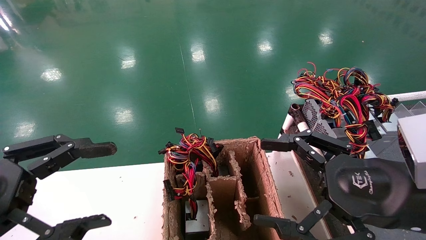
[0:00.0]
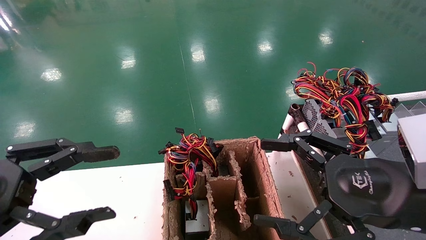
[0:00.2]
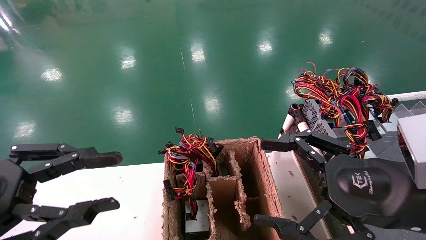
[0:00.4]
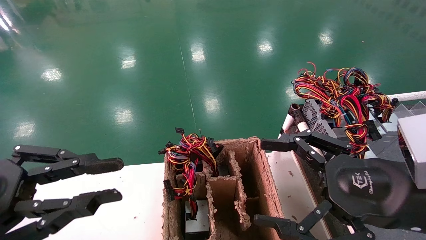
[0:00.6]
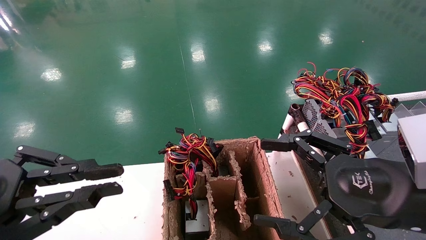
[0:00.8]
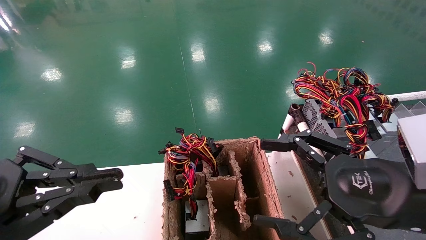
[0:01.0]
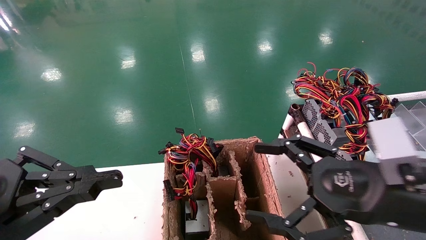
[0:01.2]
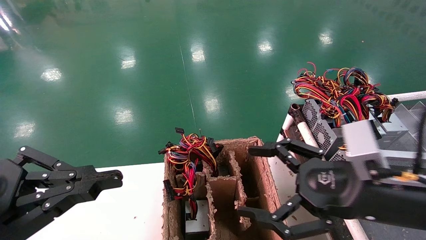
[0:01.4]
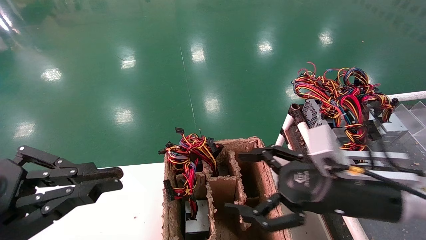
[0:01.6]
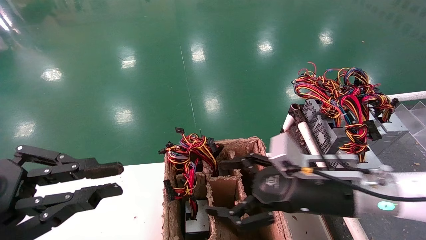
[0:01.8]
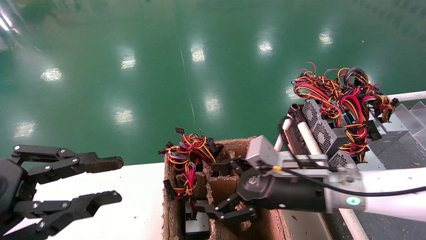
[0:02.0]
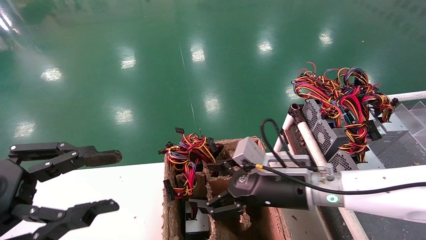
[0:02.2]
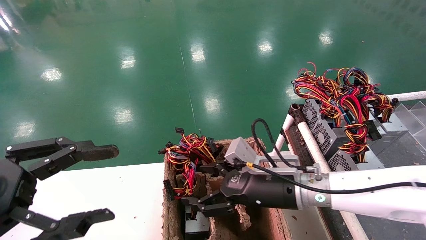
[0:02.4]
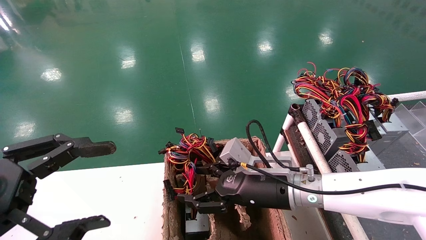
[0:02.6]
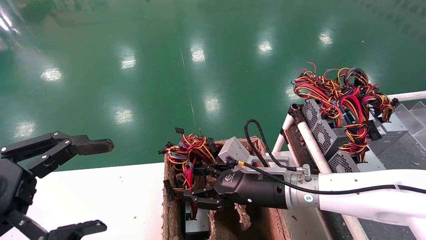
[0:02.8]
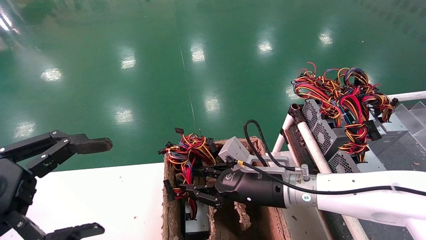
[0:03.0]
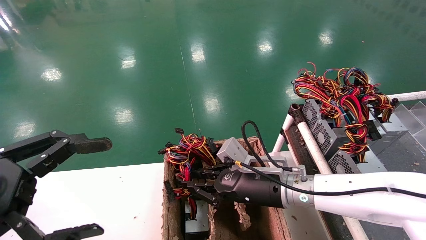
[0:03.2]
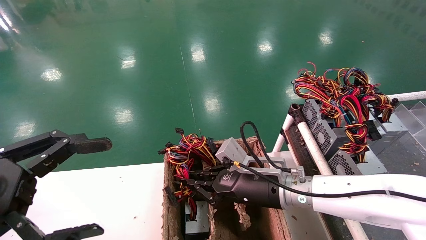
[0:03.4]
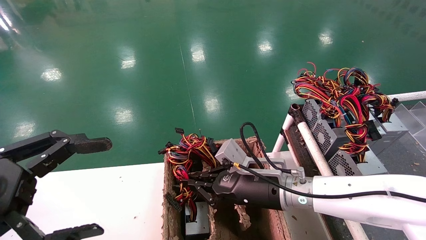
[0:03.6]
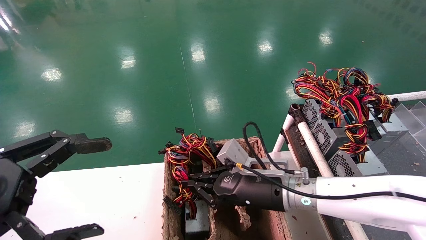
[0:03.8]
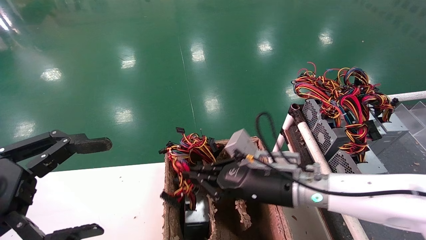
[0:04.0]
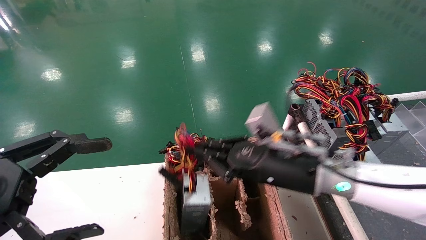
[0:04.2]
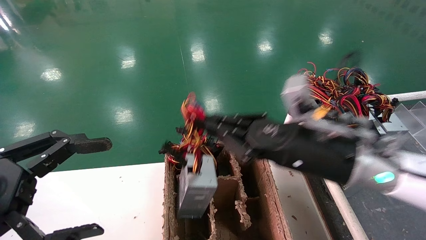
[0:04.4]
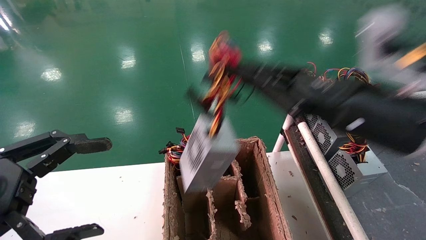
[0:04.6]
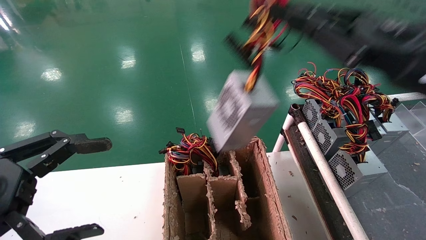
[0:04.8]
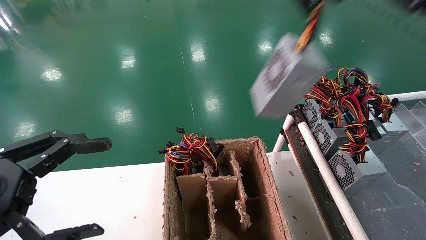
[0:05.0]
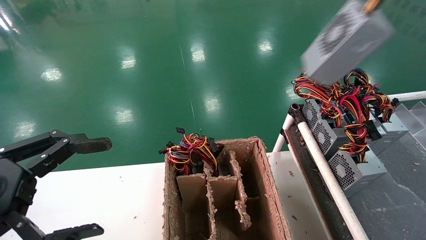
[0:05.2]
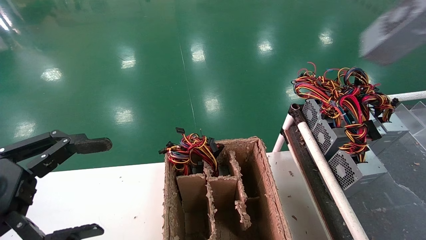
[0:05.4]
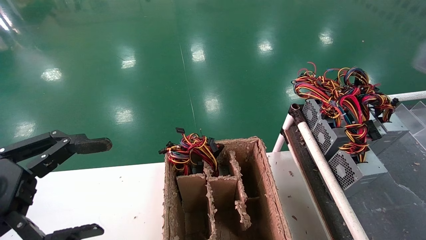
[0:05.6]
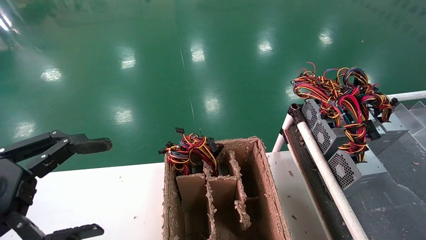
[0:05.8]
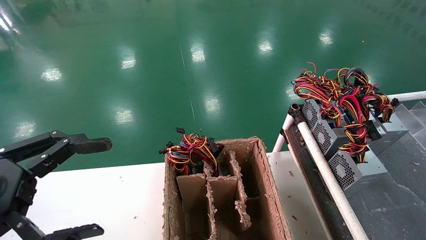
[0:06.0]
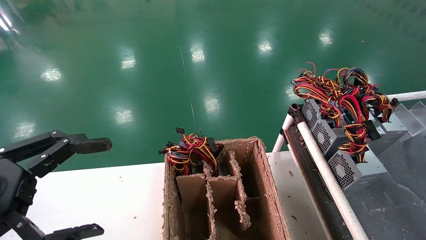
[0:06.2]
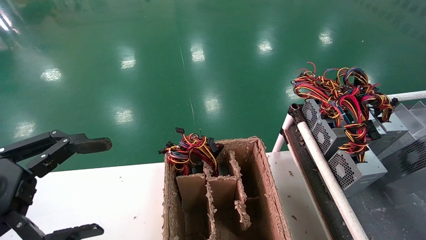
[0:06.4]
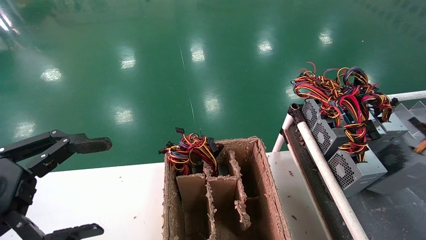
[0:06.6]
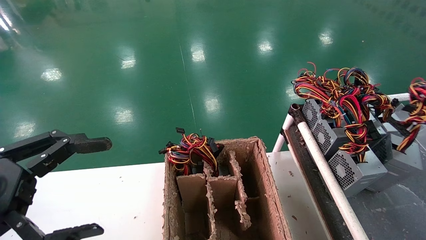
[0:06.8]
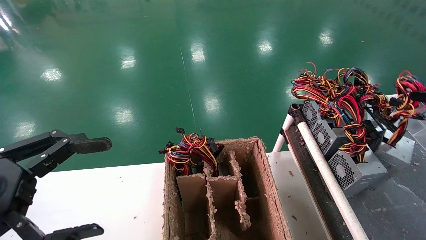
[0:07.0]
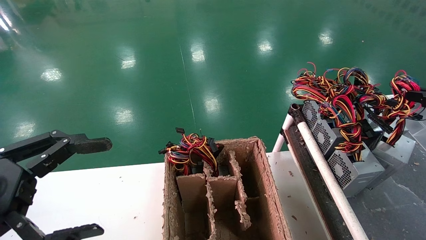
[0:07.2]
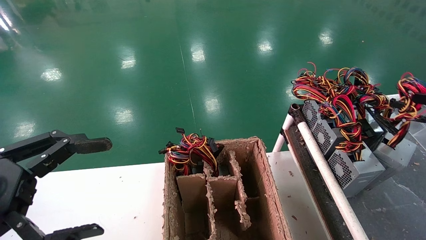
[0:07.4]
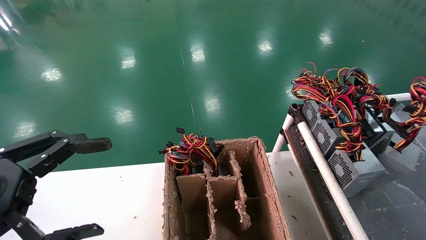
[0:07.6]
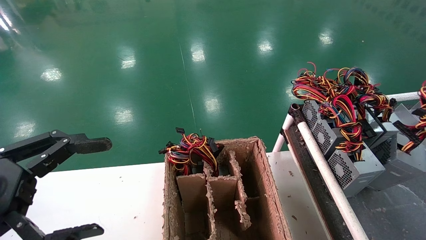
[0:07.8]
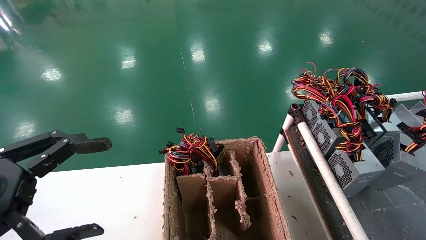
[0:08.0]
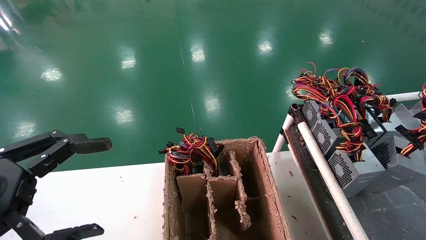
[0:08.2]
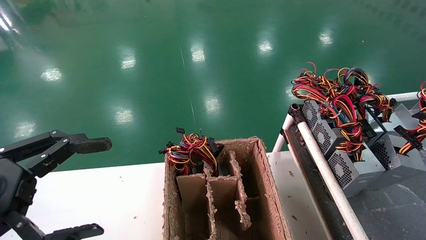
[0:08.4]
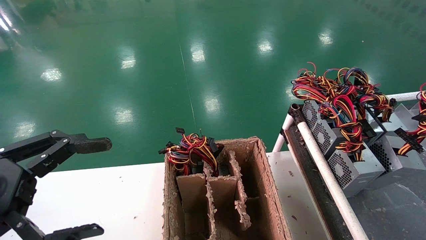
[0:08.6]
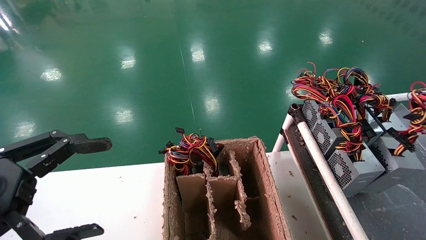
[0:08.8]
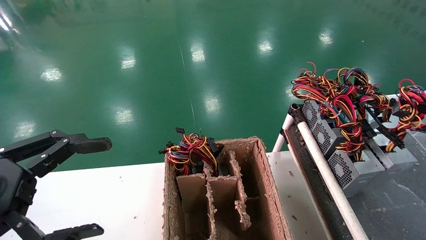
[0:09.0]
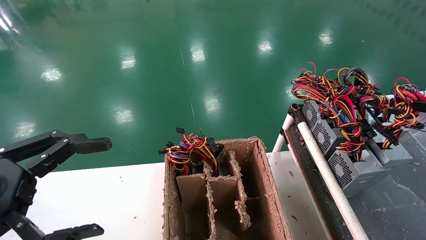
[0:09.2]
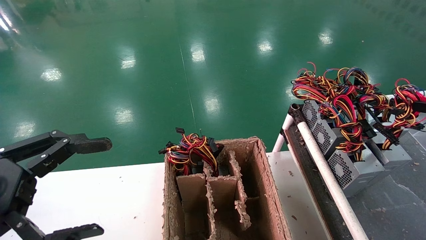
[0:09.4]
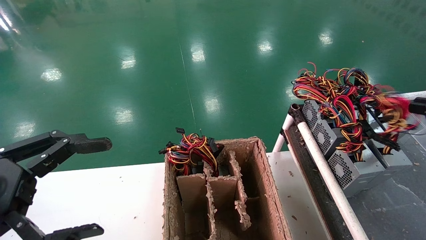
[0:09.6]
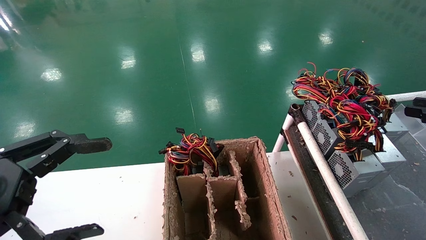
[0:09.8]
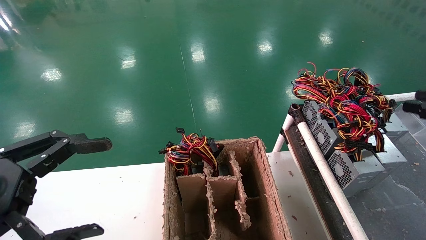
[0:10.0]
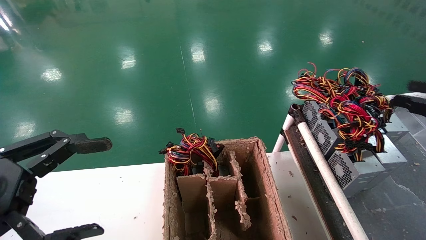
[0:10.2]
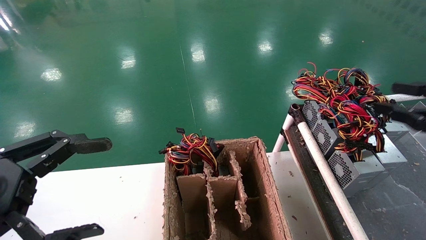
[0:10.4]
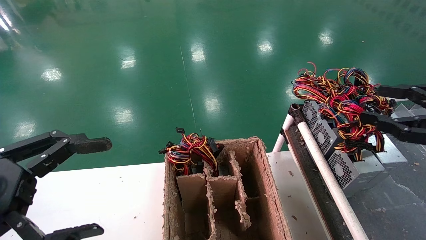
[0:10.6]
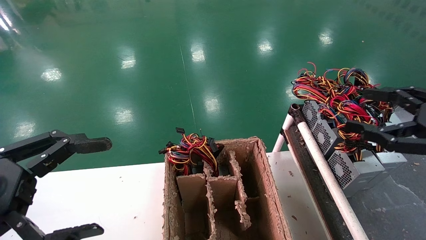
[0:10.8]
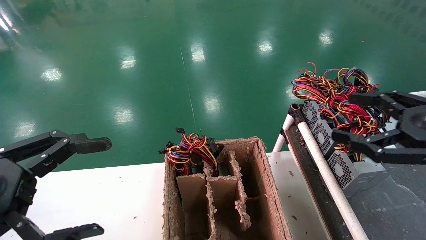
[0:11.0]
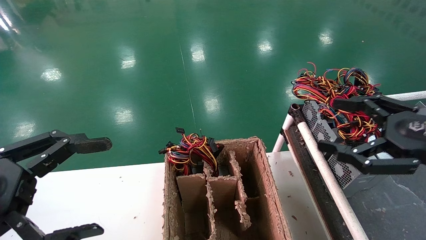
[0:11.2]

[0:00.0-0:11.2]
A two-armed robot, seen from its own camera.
Step, 0:01.4 to 0:03.4: Grab and lift the power supply from the large box.
Step, 0:03.6 to 0:09.6: Place the power supply on the operating table.
0:00.0 to 0:01.6: The right gripper heads forward, covering some 5 cm. Meanwhile the left gripper closes its fingers.
0:01.6 to 0:03.2: The left gripper opens its fingers; the right gripper shifts about 15 cm to the left, forward and downward, and closes.
0:03.2 to 0:04.8: The right gripper travels upward, to the right and backward by roughly 30 cm.
0:04.8 to 0:06.4: The right gripper goes some 30 cm to the right.
0:08.0 to 0:09.6: The grippers make only small movements.
0:09.6 to 0:11.2: The right gripper moves to the left, approximately 10 cm, and opens its fingers.

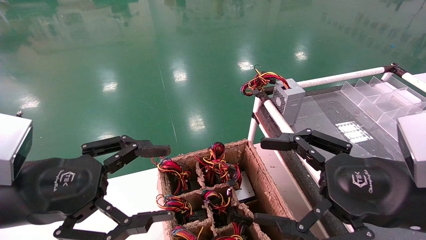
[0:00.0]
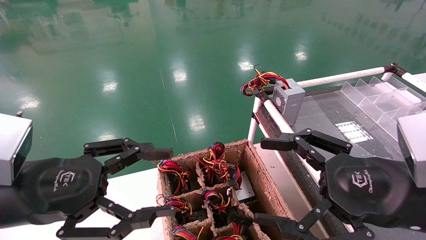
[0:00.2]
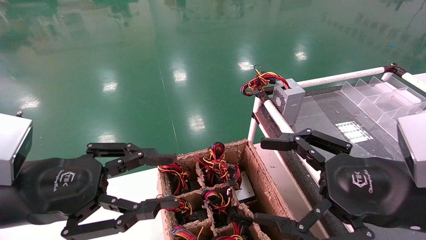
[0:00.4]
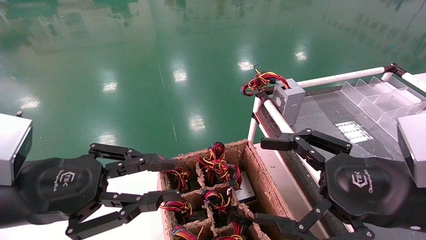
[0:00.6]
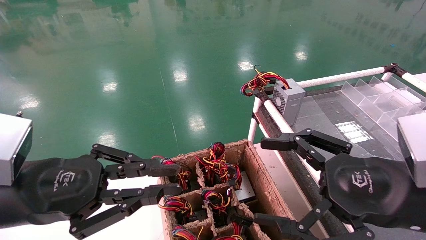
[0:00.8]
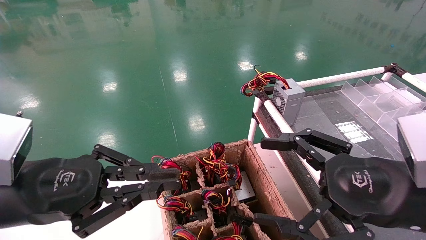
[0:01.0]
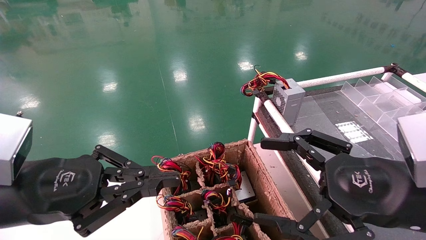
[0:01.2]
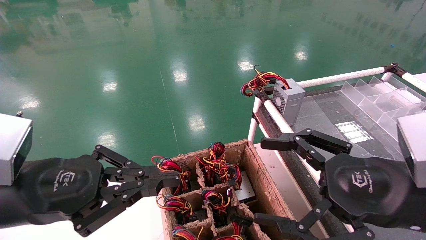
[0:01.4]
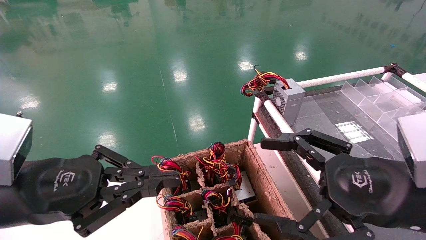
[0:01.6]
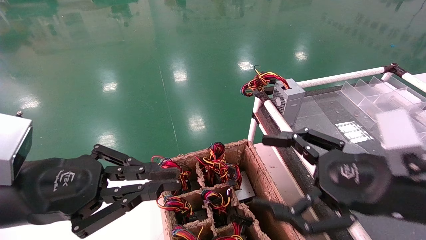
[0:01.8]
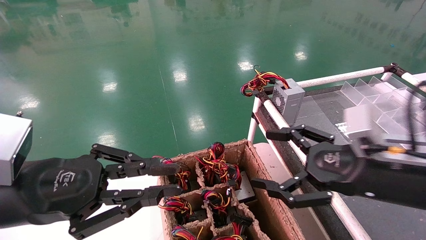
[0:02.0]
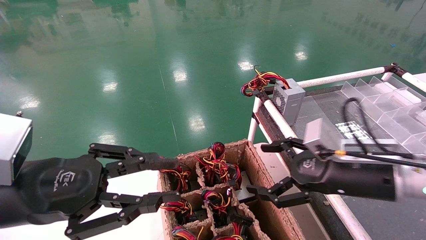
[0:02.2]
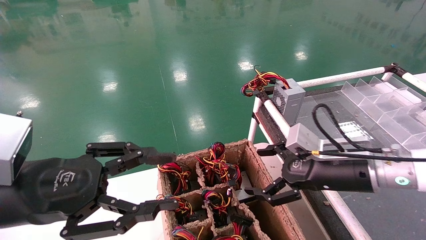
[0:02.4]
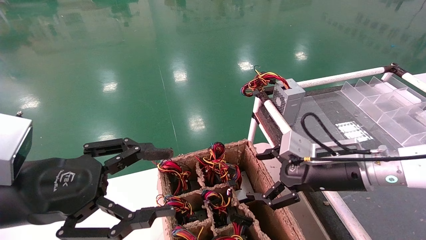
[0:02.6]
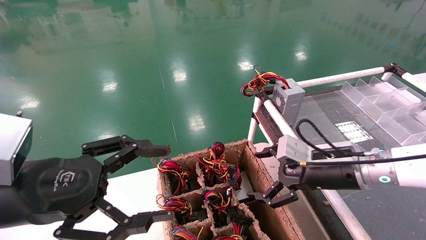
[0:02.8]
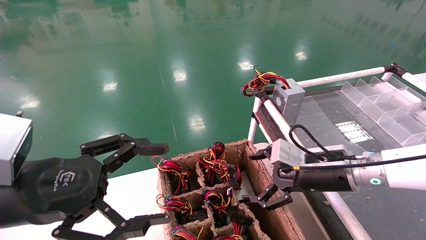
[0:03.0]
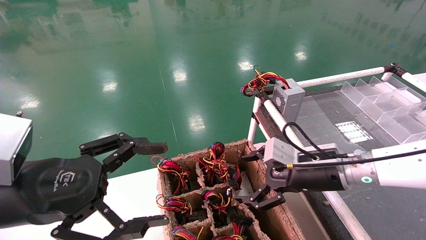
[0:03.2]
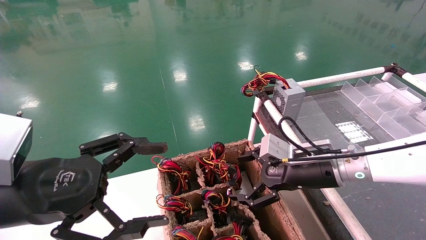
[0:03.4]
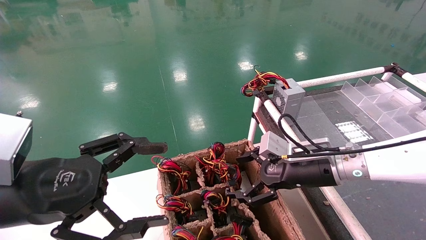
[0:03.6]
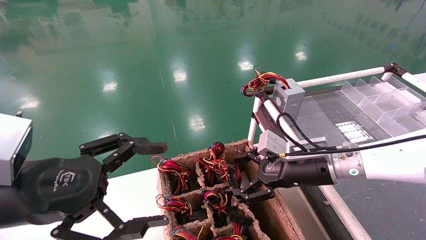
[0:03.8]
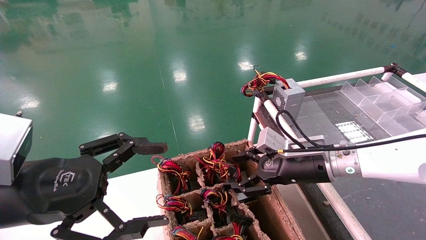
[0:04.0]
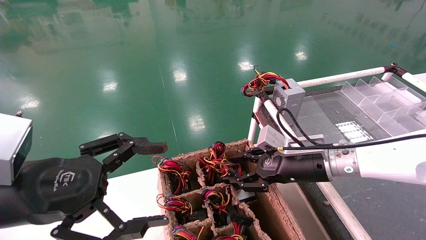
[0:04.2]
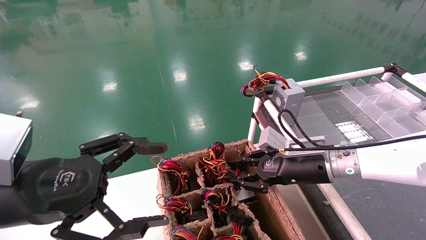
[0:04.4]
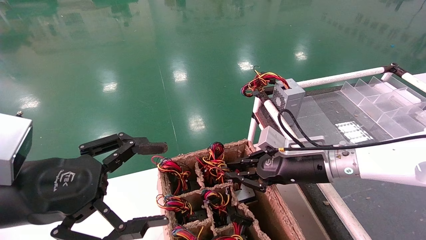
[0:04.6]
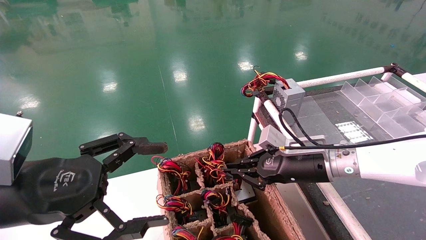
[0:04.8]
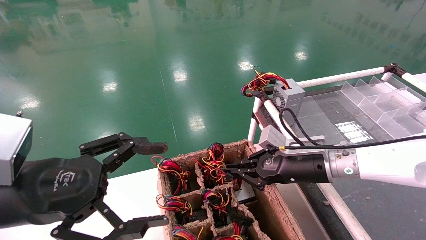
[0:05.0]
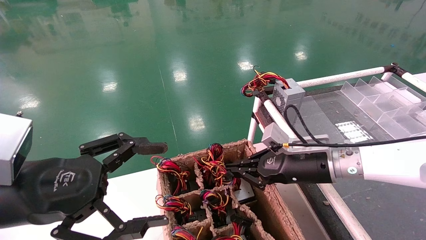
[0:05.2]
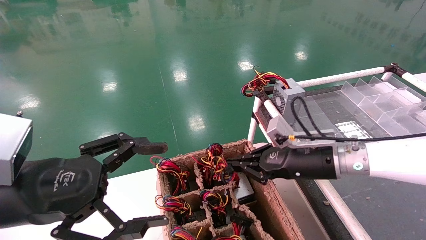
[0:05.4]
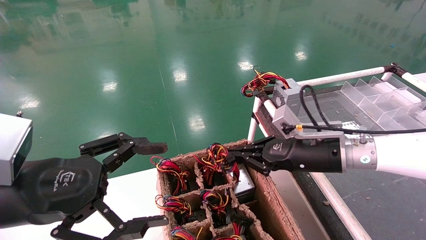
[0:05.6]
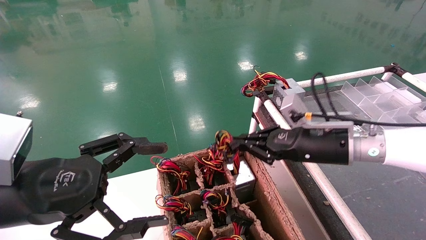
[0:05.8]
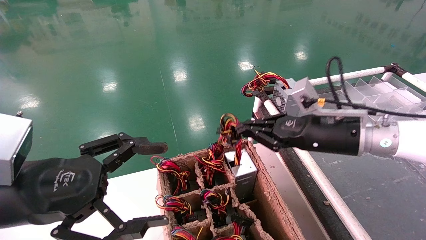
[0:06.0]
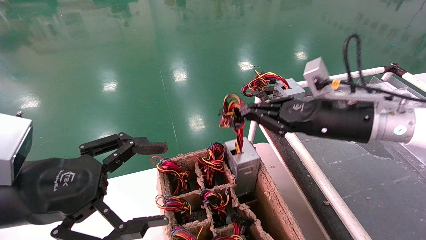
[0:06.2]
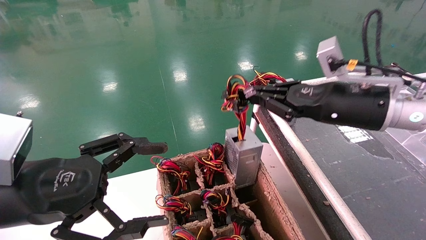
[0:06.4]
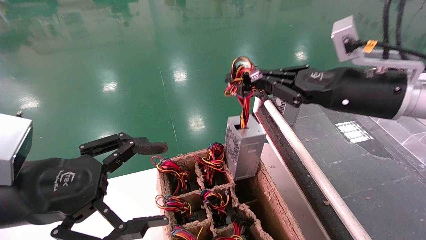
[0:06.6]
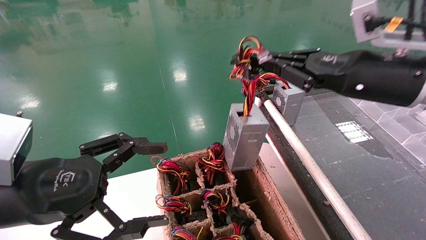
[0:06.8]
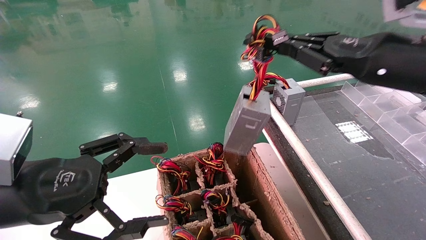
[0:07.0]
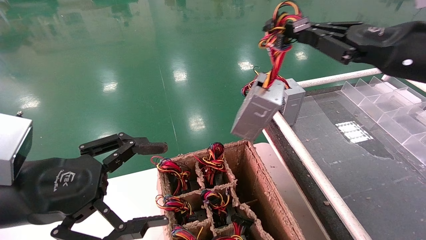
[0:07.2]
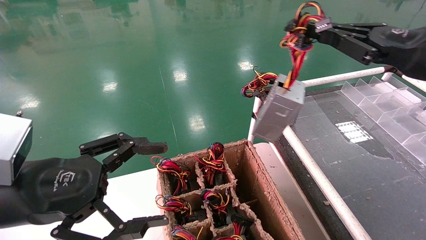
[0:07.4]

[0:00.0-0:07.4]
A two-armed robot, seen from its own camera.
Step, 0:01.2 to 0:04.8: Grab and lift the power supply from the large box.
0:00.0 to 0:01.4: The left gripper closes.
0:01.4 to 0:03.0: The left gripper opens its fingers; the right gripper goes roughly 15 cm forward.
0:03.0 to 0:04.4: The right gripper closes.
0:04.4 to 0:06.0: The right gripper heads upward, covering approximately 10 cm, and closes up.
0:06.0 to 0:07.4: The right gripper moves upward, to the right and backward, roughly 15 cm.
